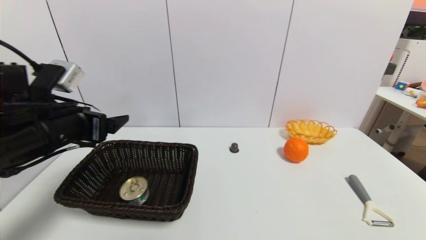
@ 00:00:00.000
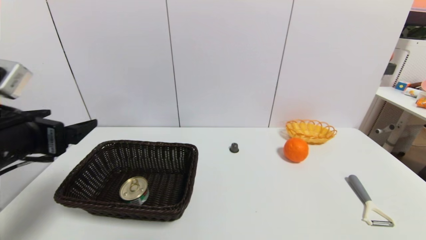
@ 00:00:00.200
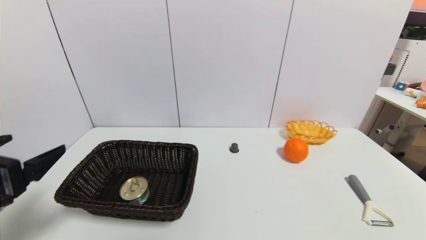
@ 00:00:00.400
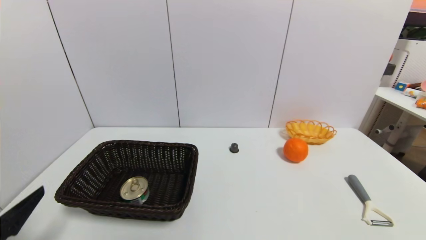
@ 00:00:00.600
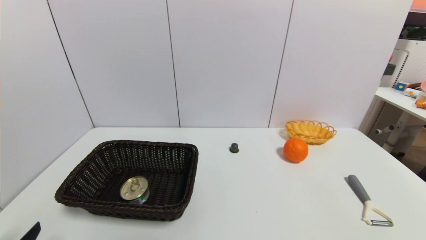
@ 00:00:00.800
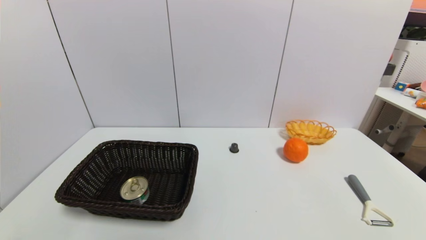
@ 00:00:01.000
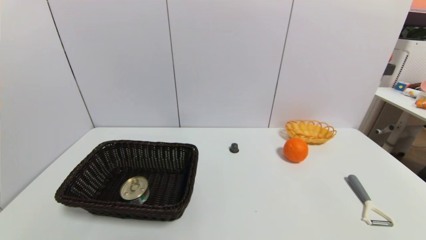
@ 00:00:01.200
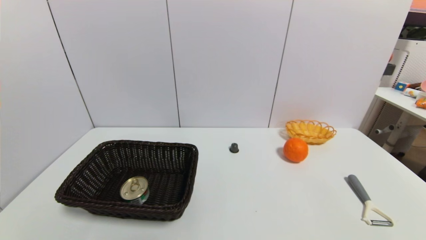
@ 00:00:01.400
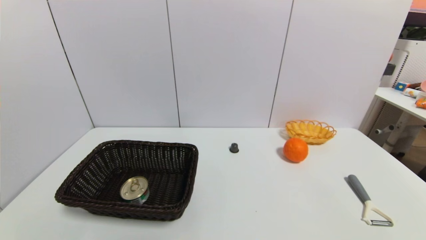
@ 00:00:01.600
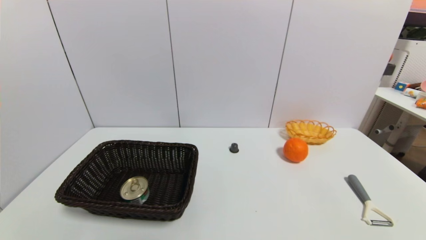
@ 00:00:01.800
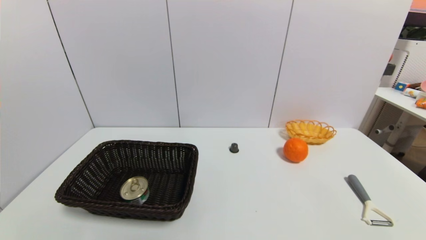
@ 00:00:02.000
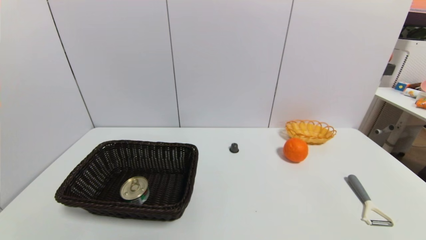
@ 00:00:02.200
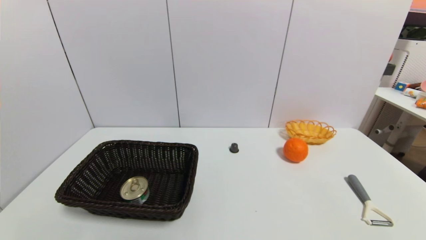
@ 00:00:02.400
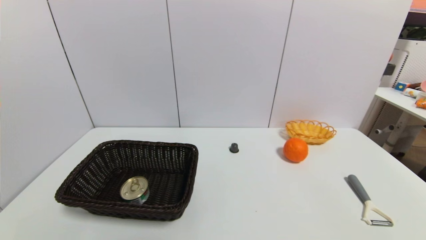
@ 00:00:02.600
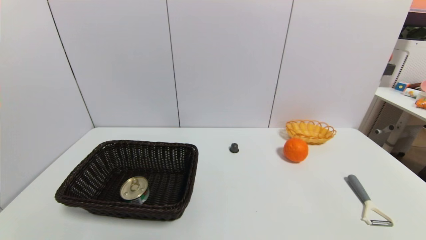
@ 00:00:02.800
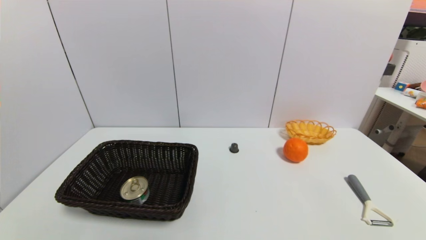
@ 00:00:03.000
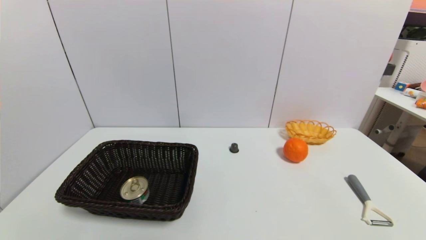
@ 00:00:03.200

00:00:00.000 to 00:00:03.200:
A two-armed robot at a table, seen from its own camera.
Task of the whole recording: use a gripper to pick the target object and place on the brown basket.
00:00:00.000 to 00:00:01.600: The left gripper heads backward and downward, covering roughly 30 cm.
00:00:01.600 to 00:00:03.200: Both grippers stay put.
